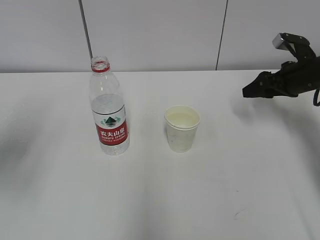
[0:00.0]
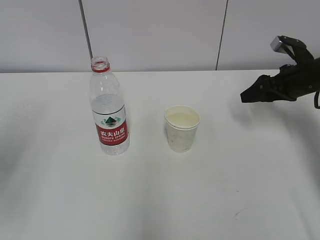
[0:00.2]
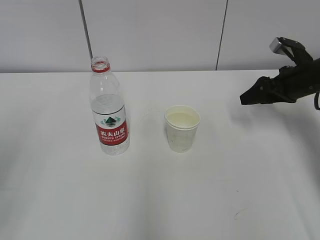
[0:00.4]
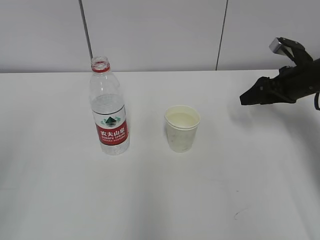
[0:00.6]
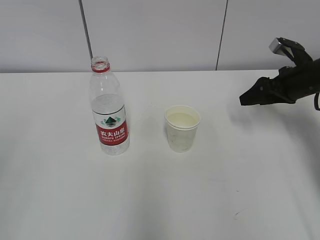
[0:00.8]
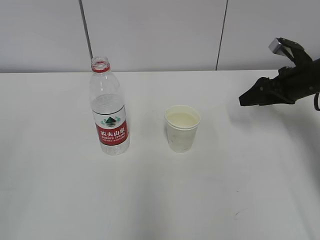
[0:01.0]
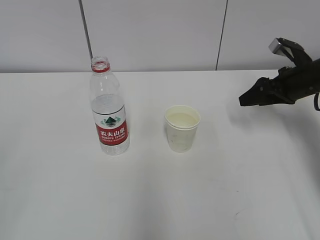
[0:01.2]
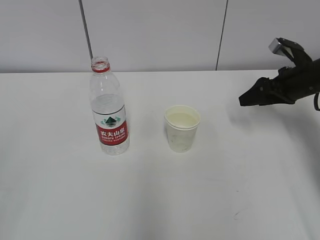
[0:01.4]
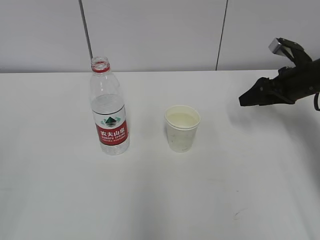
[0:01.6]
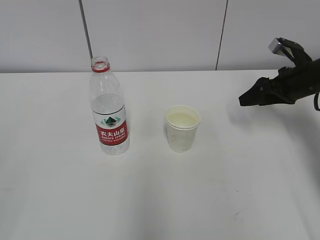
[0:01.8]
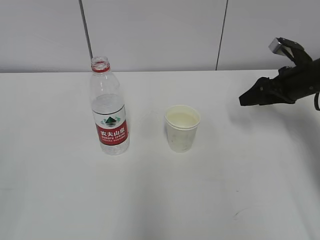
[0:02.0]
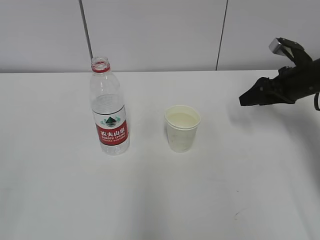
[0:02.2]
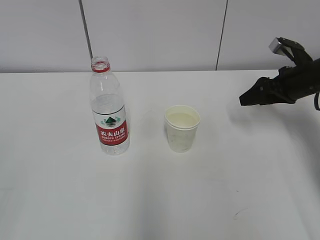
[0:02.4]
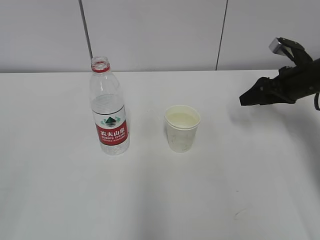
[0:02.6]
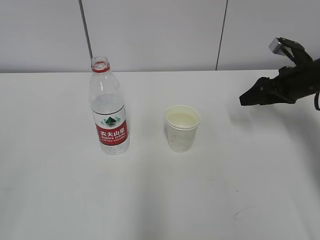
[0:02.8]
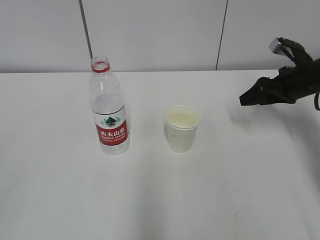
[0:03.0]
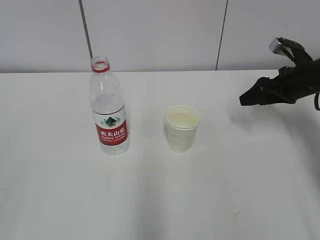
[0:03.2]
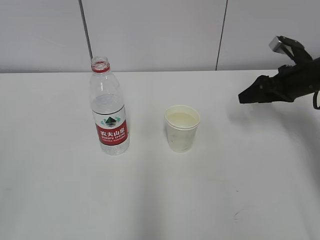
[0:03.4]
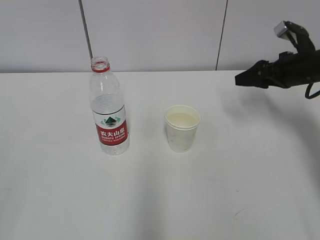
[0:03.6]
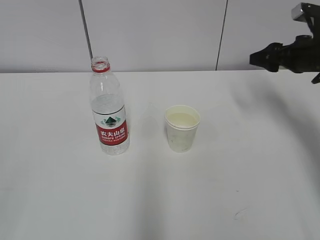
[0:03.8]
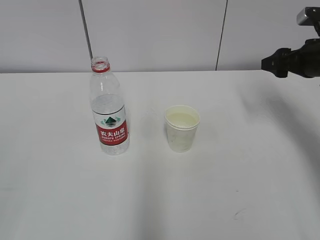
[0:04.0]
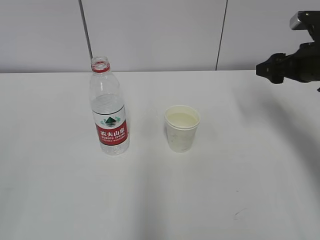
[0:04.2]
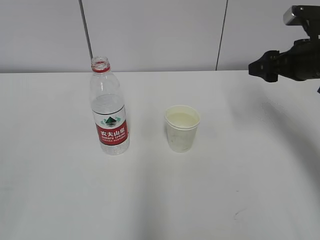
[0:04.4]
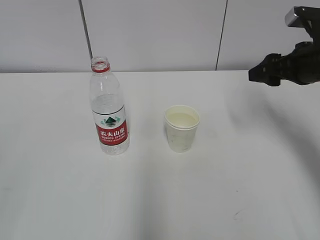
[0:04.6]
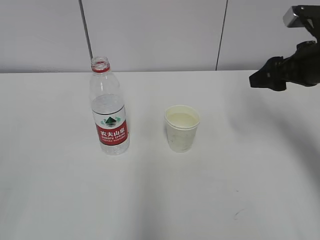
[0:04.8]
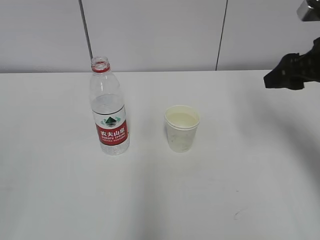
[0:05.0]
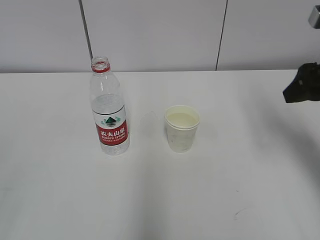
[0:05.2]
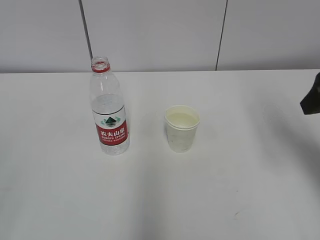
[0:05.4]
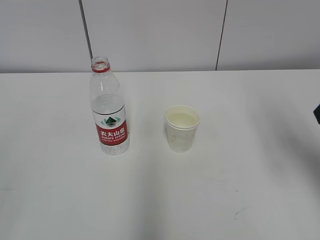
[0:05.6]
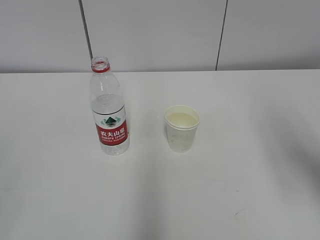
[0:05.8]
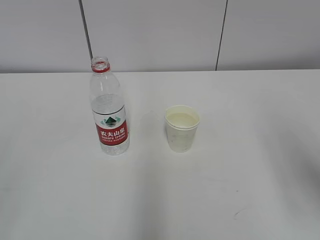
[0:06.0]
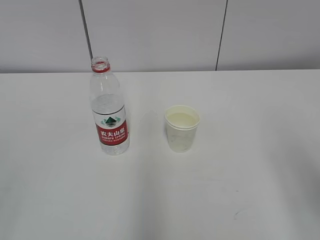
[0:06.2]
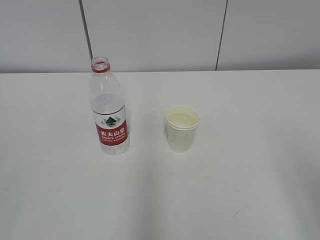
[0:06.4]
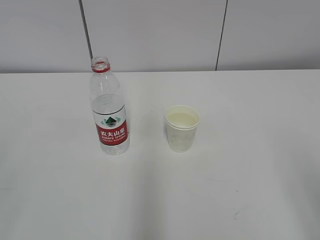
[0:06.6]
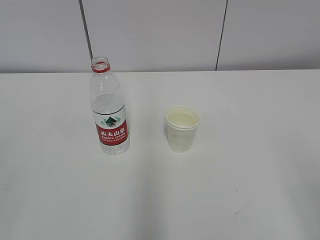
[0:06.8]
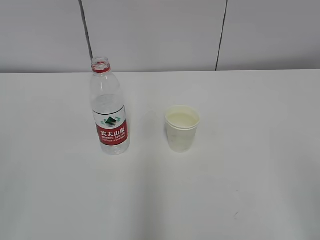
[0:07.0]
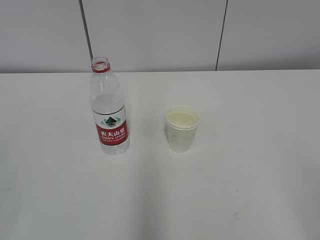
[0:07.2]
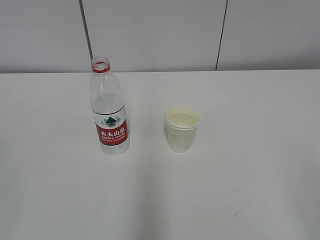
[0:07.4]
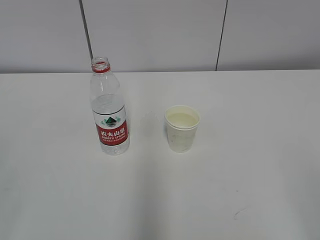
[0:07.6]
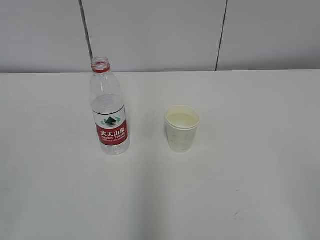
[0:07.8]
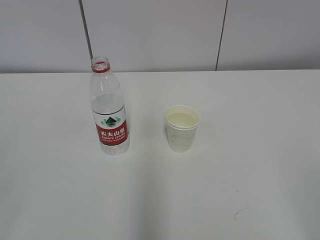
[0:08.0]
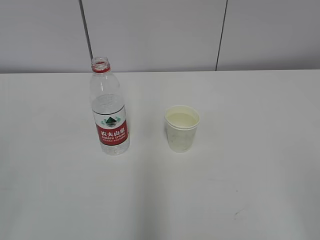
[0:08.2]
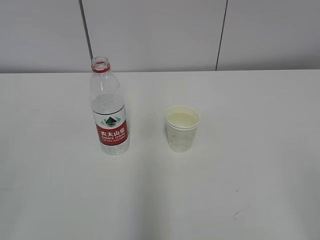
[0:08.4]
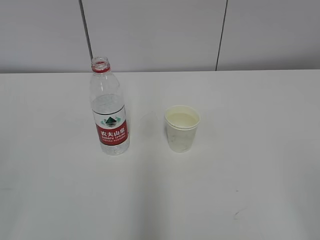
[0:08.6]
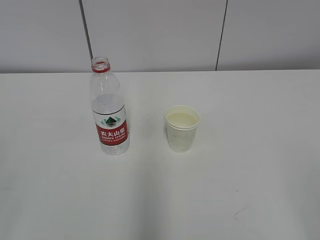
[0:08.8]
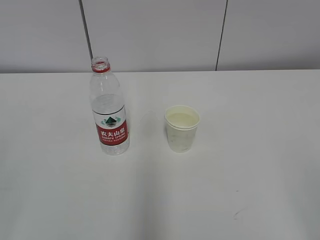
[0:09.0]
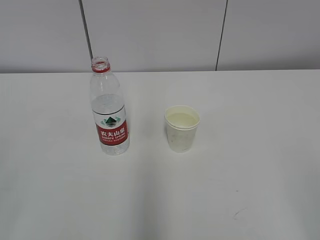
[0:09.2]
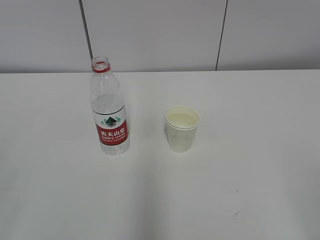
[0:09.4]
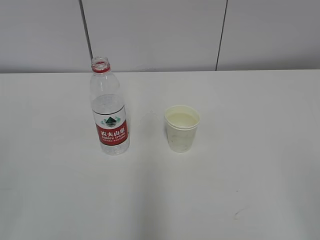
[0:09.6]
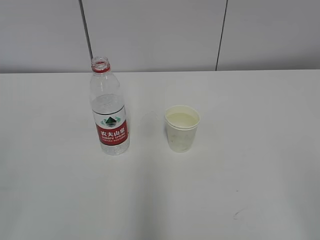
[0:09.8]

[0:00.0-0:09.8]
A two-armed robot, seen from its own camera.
0:00.0 to 0:01.4: The left gripper is displaced backward by approximately 20 cm.
0:02.8 to 0:04.2: The right gripper ends up approximately 5 cm from where it was.
0:04.2 to 0:05.6: The right gripper moves backward and upward, some 15 cm.
0:05.6 to 0:07.0: The right gripper heads backward, covering about 20 cm.
0:08.4 to 0:09.8: Neither gripper changes place.
